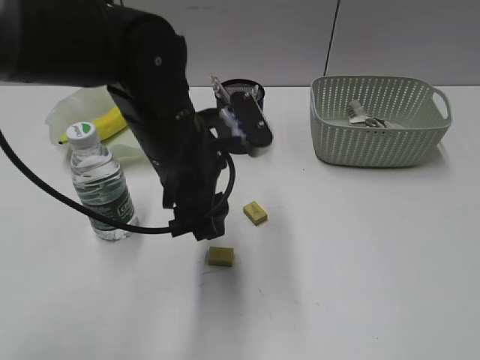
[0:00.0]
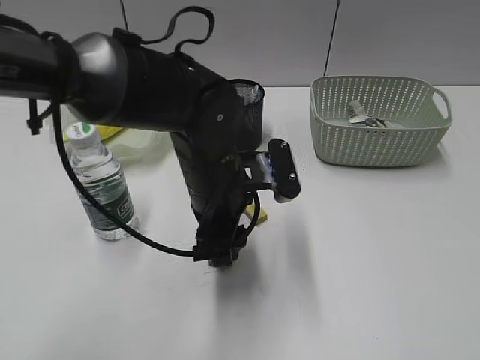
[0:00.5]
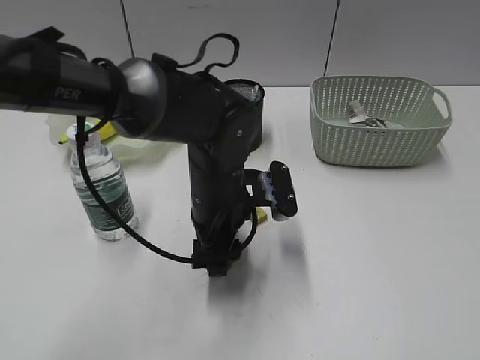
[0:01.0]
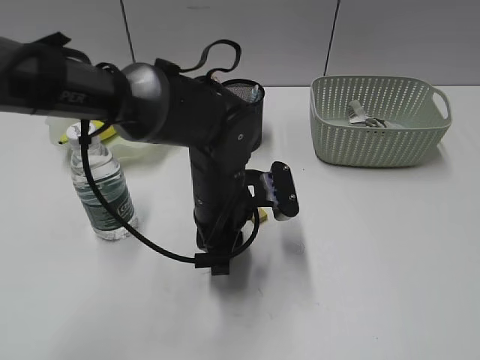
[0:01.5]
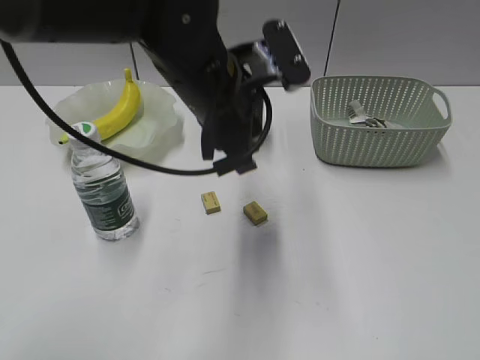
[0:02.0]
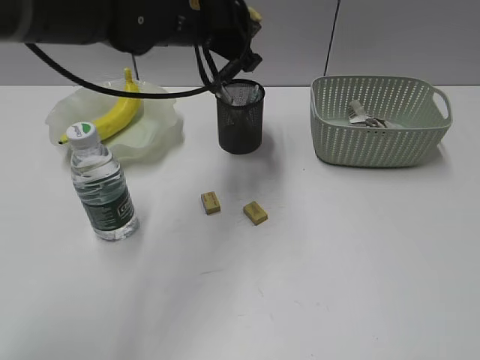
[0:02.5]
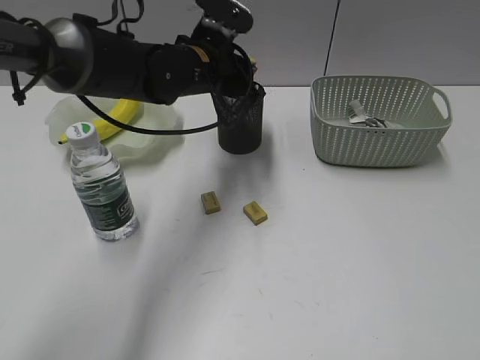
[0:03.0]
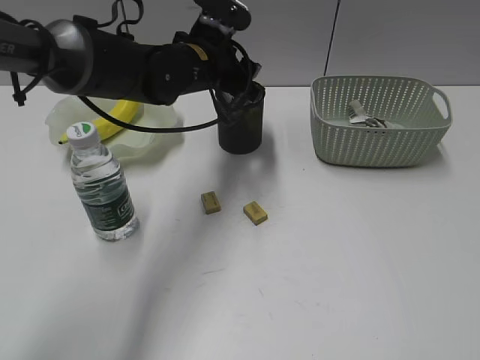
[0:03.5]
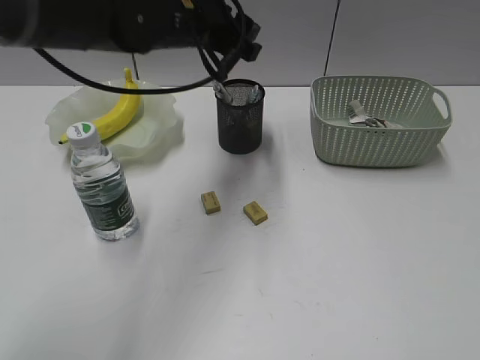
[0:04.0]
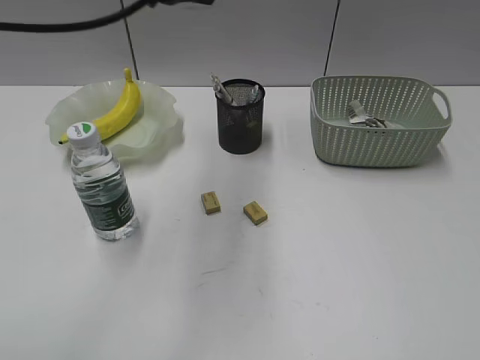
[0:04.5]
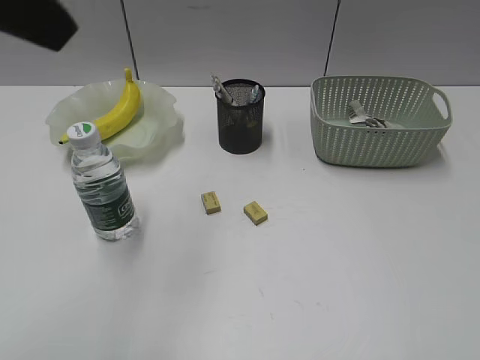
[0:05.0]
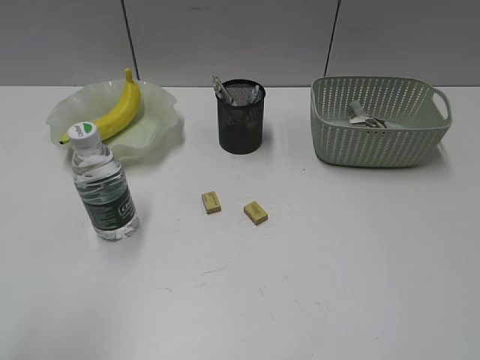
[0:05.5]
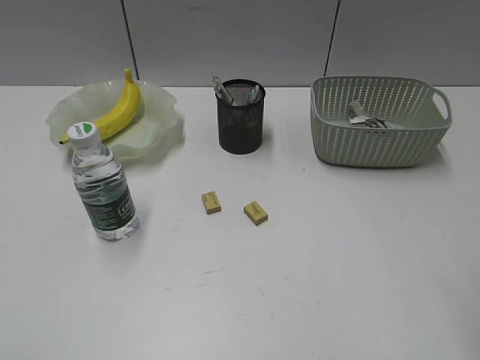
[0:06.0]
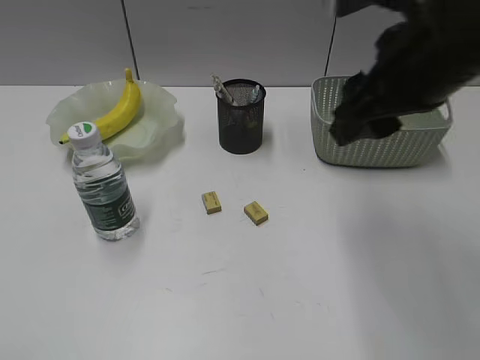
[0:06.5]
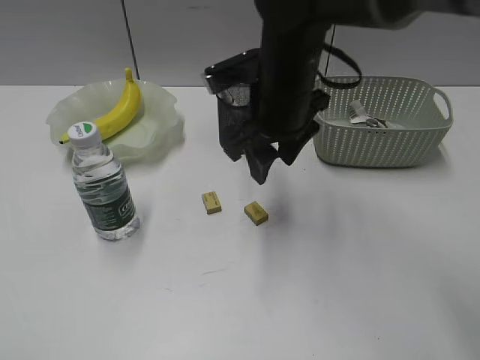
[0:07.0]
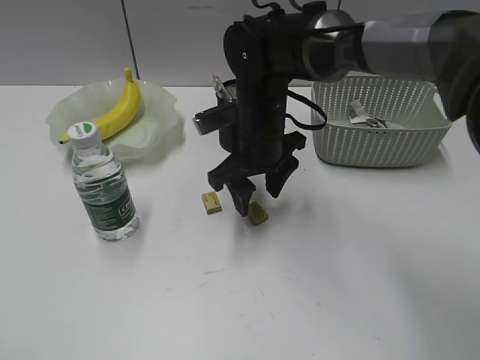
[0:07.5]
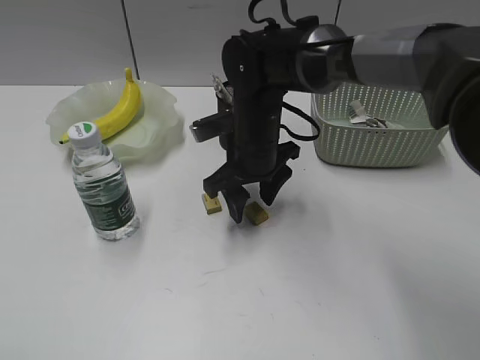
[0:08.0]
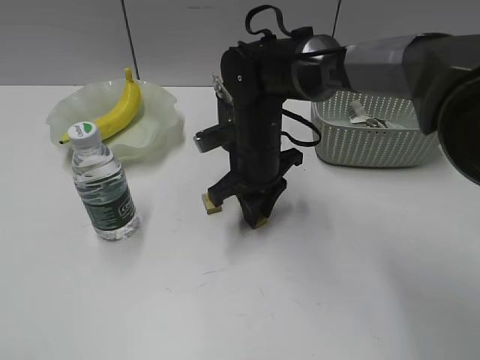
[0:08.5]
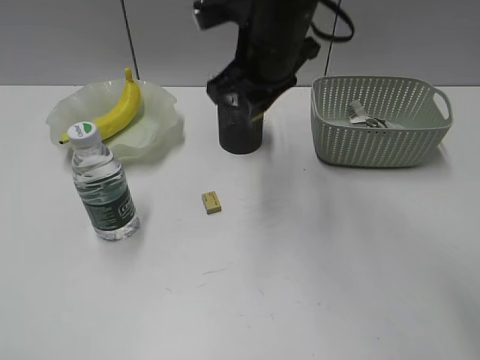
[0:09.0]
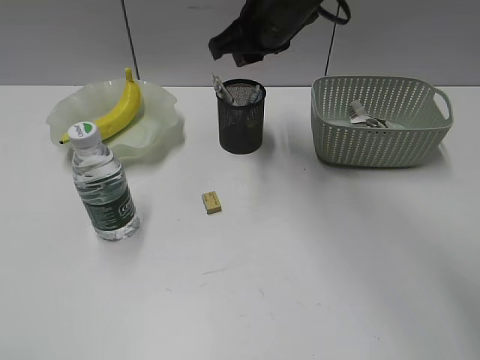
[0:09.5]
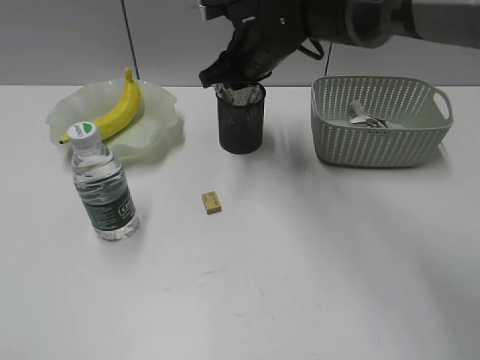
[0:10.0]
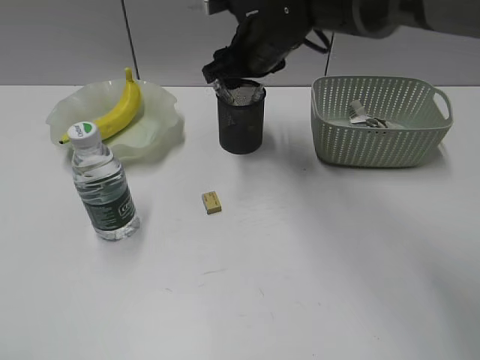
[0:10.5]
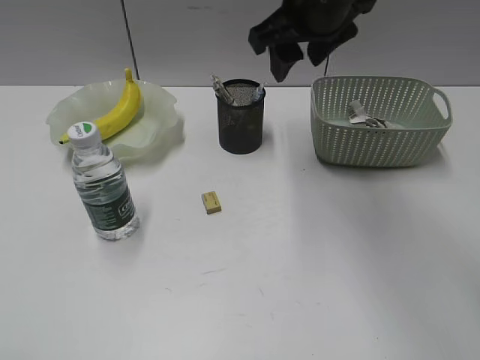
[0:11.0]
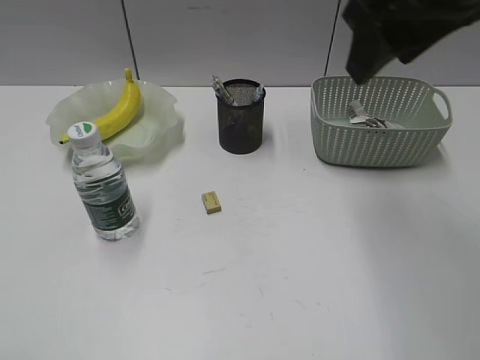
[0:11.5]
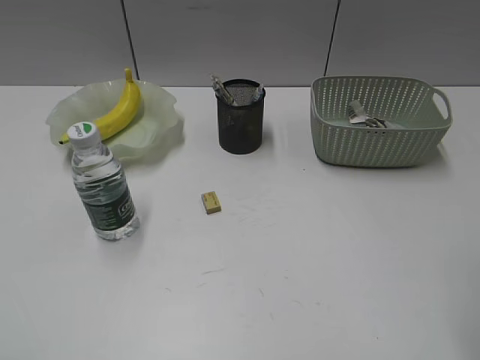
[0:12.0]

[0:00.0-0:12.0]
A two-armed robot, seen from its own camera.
Step, 0:01.5 to 0:03.5: Place the eraser in pen holder with left gripper.
Step, 0:04.0 to 0:08.5: Grasp the eraser with right gripper.
Step, 0:09.0 to 0:10.5: Place the eraser in pen holder with right gripper.
0:00.0 to 0:02.0: The left gripper moves some 10 cm downward and comes back, and closes up.
0:02.0 to 0:04.0: The left gripper goes approximately 10 cm forward, and opens.
0:04.0 to 0:06.0: The right gripper heads forward and to the left, covering approximately 10 cm, while the left gripper moves backward and to the left, approximately 50 cm.
0:06.0 to 0:08.0: The right gripper heads forward, to the left and downward, covering some 40 cm.
0:08.0 to 0:10.0: The right gripper is displaced upward and forward by approximately 10 cm, and closes up.
0:10.0 to 0:12.0: The right gripper goes some 40 cm backward, to the right and upward, and opens.

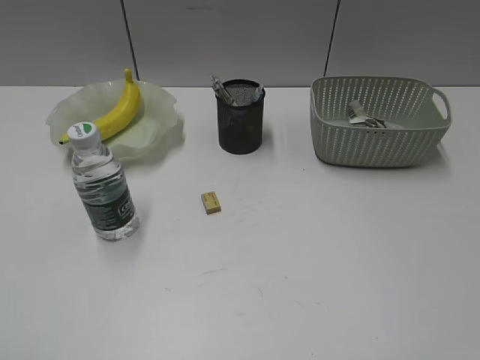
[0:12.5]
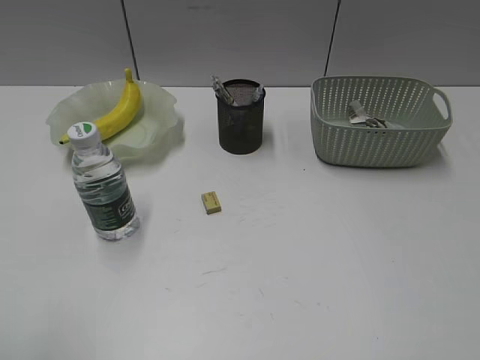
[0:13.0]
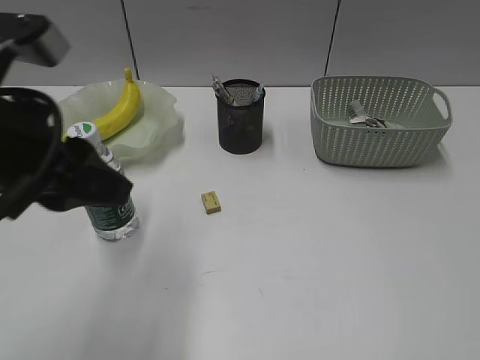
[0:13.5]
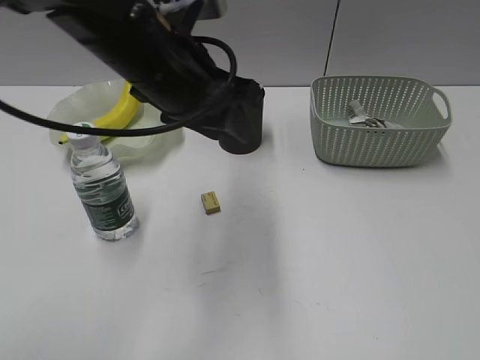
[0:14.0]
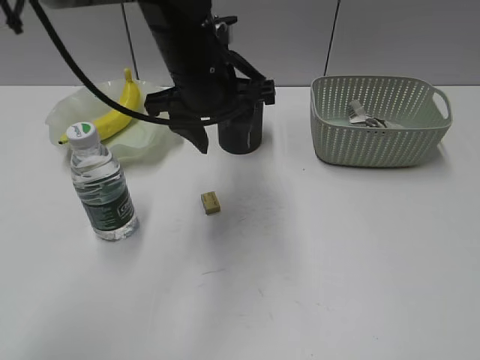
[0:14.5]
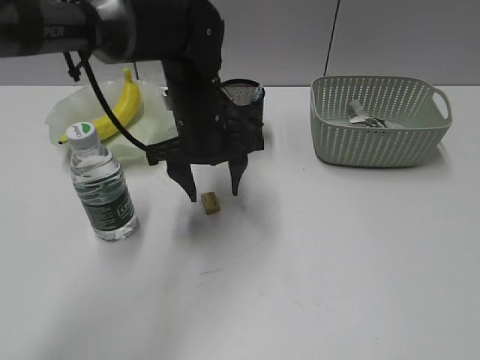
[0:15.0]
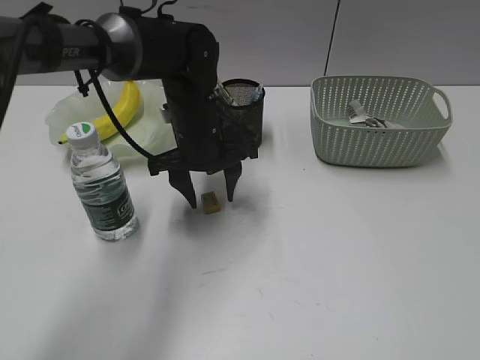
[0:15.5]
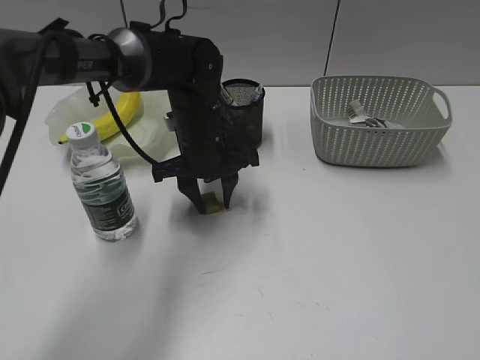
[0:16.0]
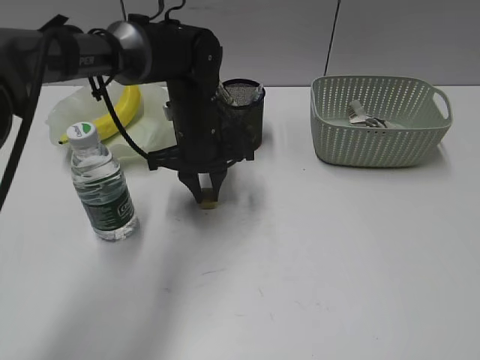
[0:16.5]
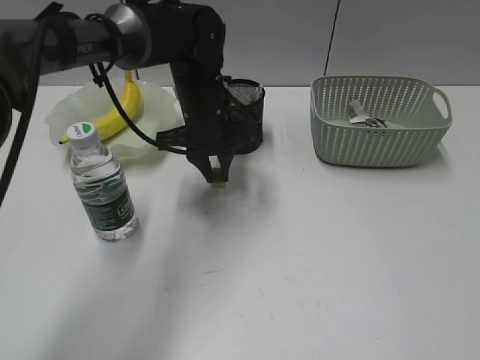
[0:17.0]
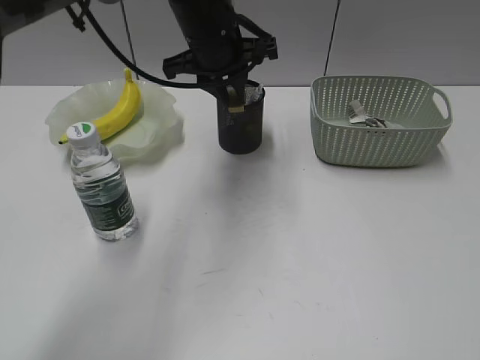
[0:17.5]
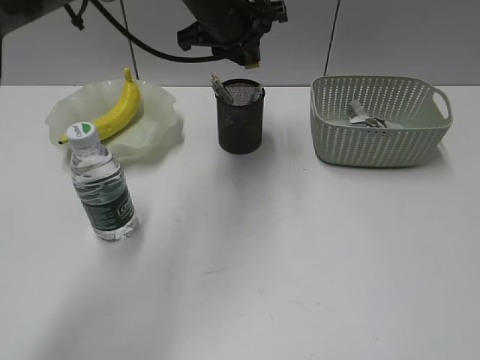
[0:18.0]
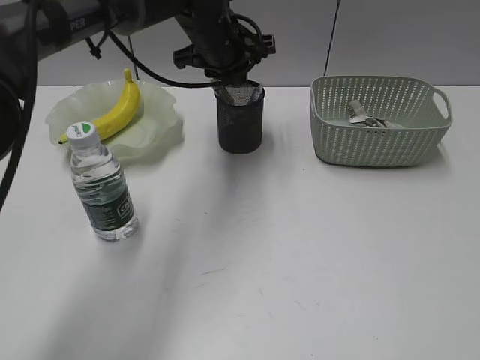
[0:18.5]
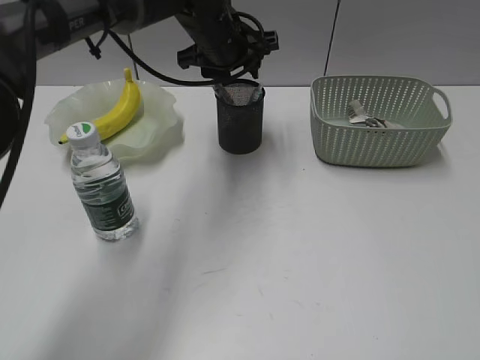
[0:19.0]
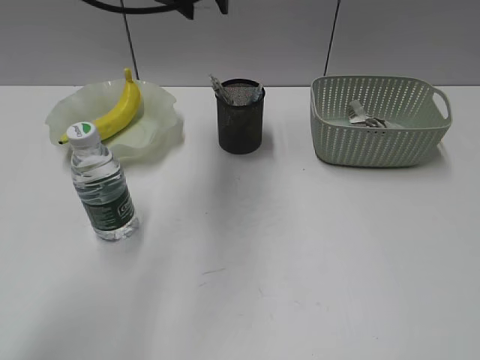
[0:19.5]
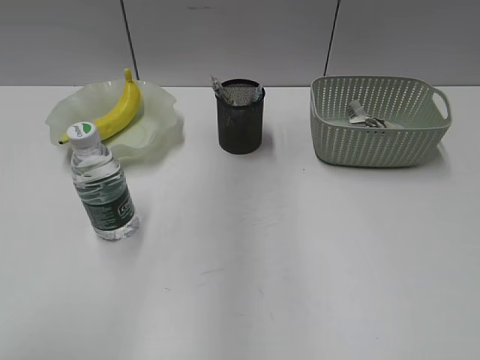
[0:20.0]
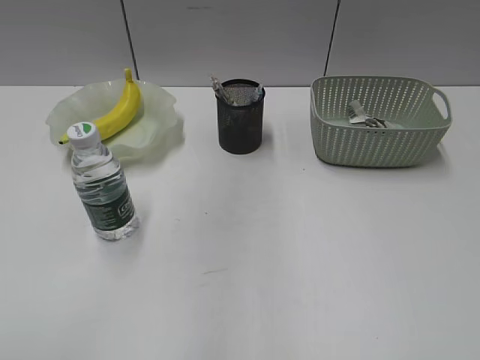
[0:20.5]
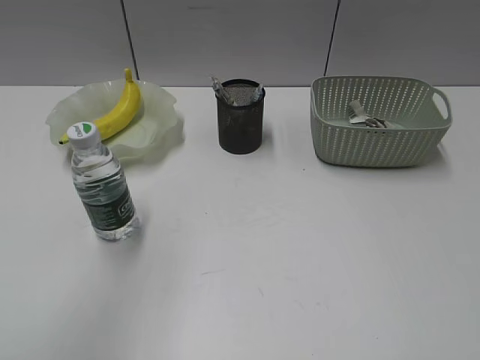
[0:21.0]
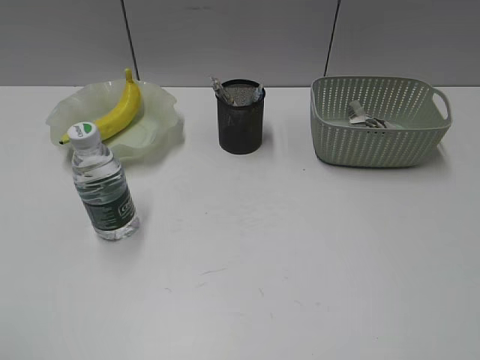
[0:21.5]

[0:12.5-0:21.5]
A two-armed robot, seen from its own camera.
Step, 0:12.5 to 0:16.0: Grasp the eraser with left gripper.
Step, 0:16.5 to 0:18.5: Place the eraser in pen holder with left gripper.
0:12.5 to 0:14.5: The left gripper goes roughly 50 cm forward and to the right.
0:14.5 to 0:17.0: The left gripper goes some 10 cm downward and forward, and closes up.
0:17.0 to 0:19.5: The left gripper goes up and down, approximately 20 cm each way, reversing 2 times, and opens up.
0:19.5 to 0:21.5: The left gripper goes approximately 50 cm backward and to the left.

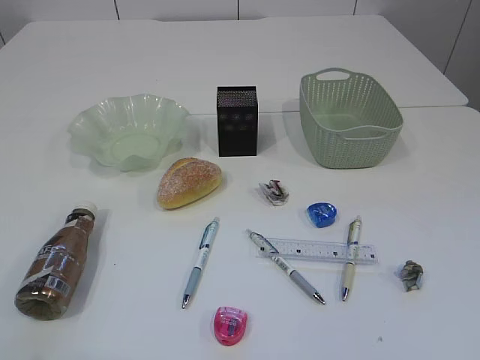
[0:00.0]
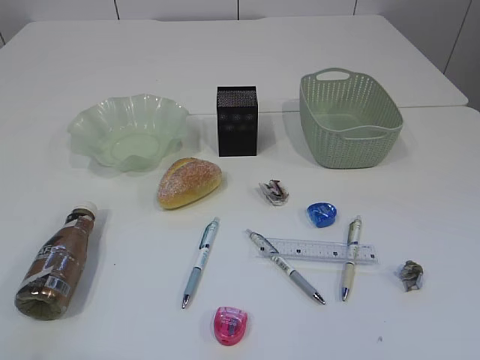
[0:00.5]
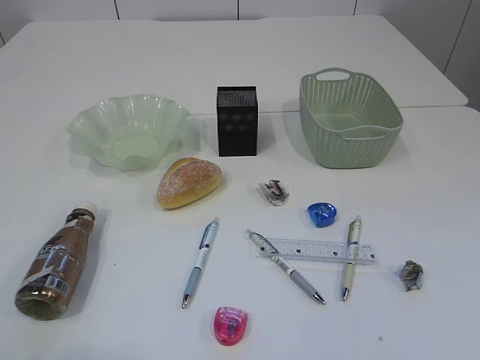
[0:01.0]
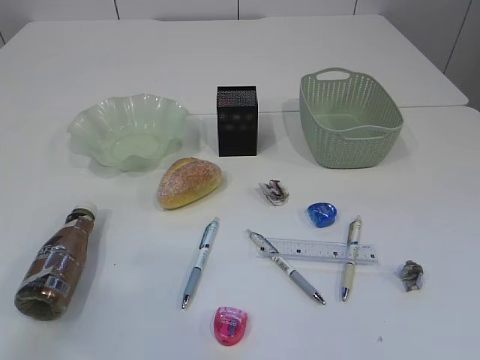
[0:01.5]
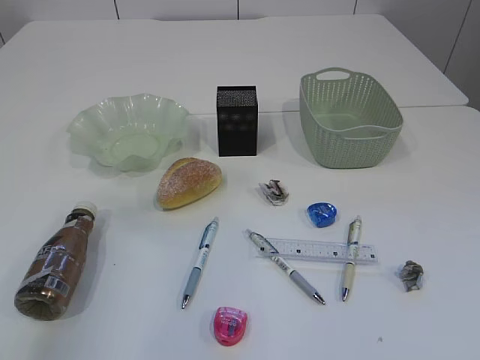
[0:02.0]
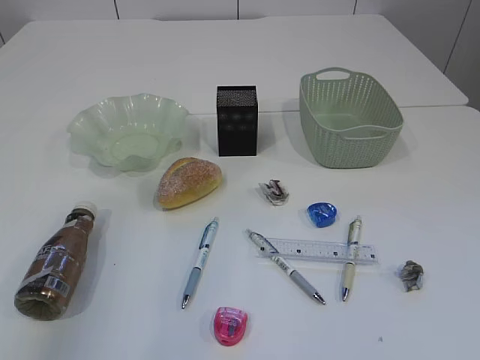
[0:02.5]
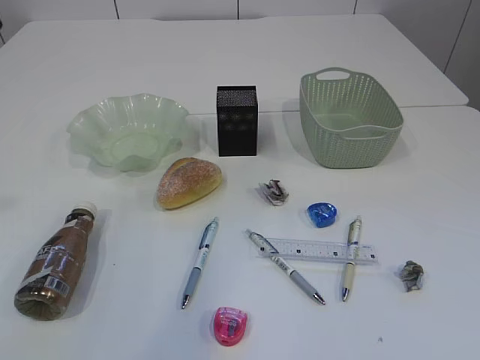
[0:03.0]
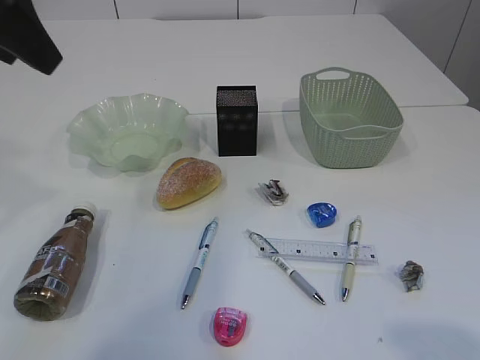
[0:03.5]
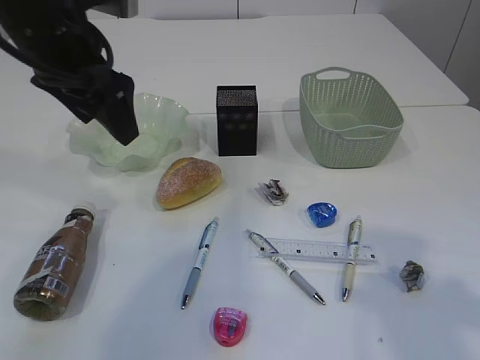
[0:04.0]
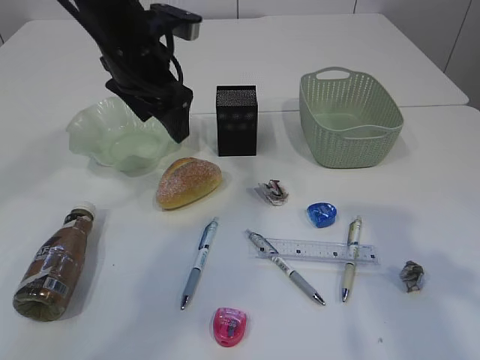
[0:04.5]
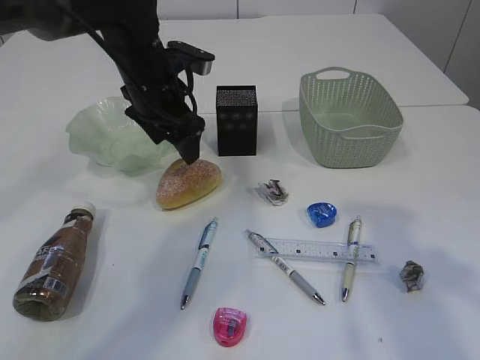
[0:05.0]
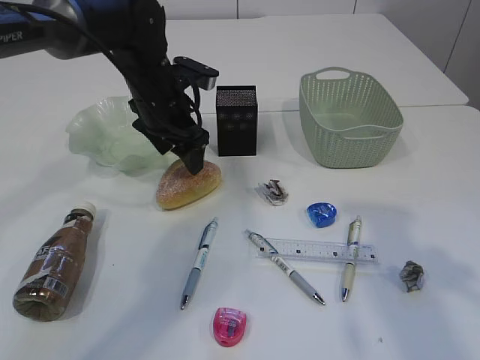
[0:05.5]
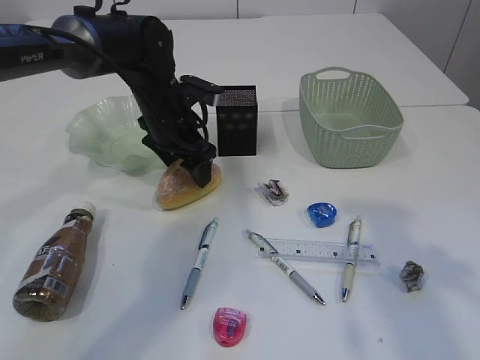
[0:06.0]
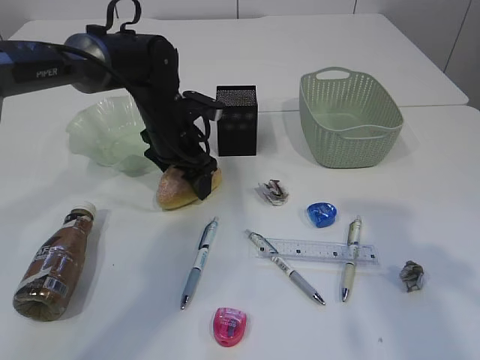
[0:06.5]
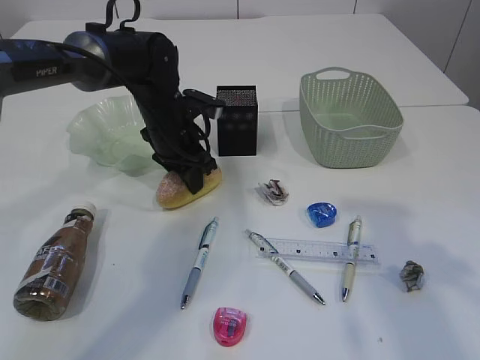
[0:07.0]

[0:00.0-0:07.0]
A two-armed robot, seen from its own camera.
0:02.0 to 0:03.5: The left gripper heads forward and to the right, covering roughly 15 cm.
0:03.5 to 0:05.0: The right gripper goes some 15 cm forward; the left gripper moves downward, forward and to the right, approximately 25 cm.
0:05.0 to 0:07.0: The left gripper shifts approximately 10 cm downward, and closes.
